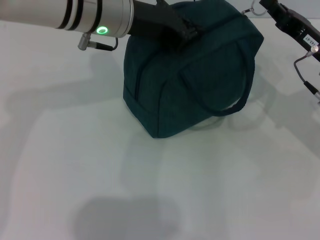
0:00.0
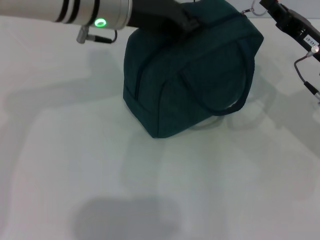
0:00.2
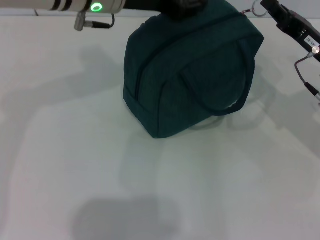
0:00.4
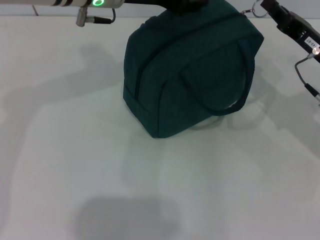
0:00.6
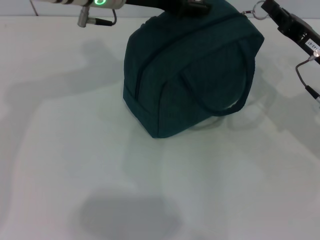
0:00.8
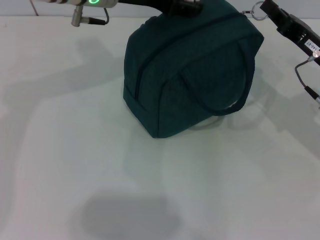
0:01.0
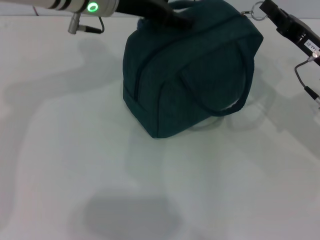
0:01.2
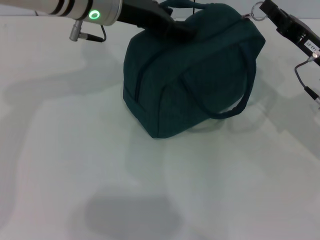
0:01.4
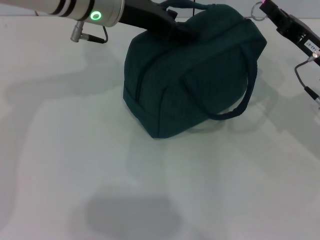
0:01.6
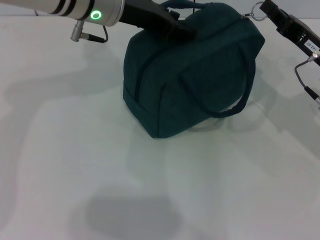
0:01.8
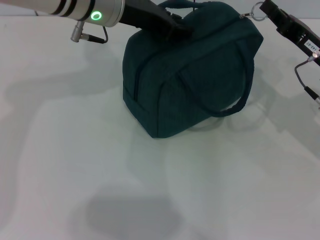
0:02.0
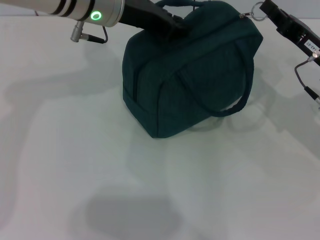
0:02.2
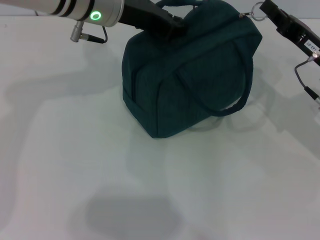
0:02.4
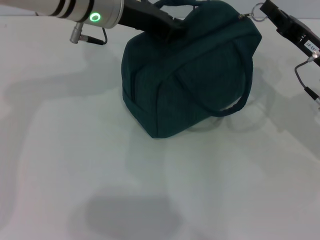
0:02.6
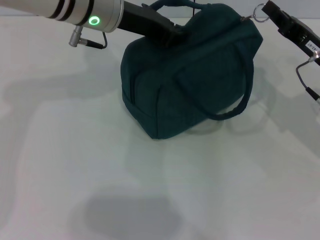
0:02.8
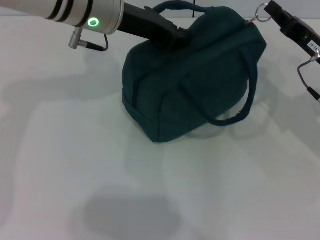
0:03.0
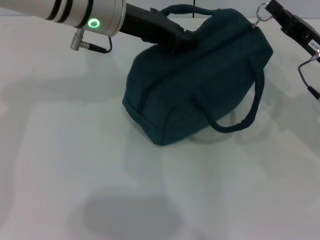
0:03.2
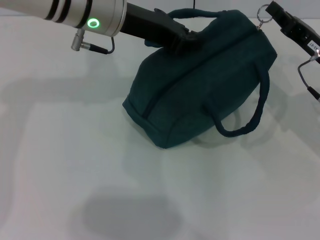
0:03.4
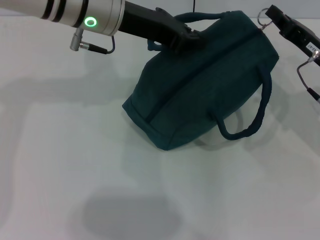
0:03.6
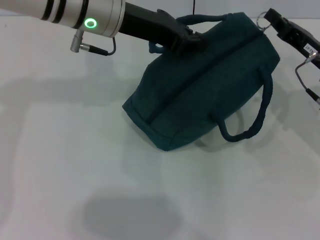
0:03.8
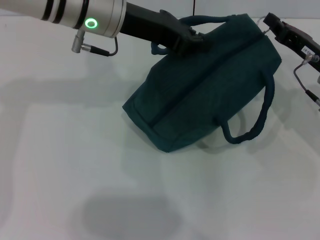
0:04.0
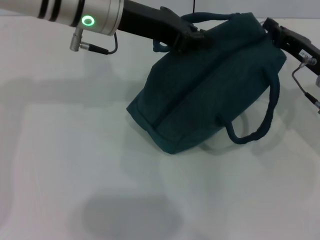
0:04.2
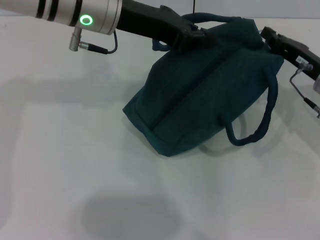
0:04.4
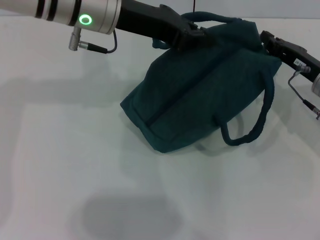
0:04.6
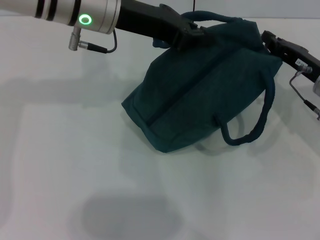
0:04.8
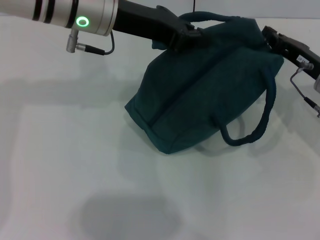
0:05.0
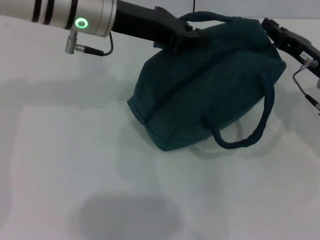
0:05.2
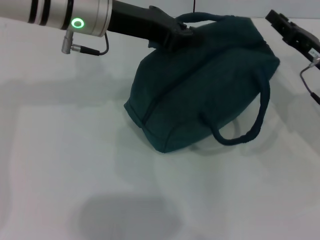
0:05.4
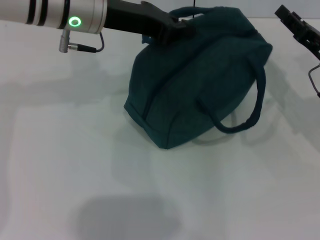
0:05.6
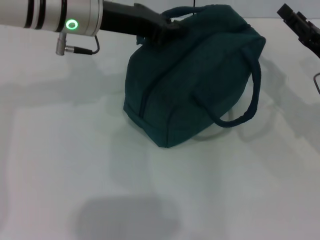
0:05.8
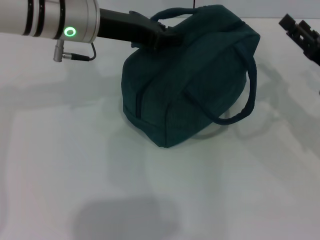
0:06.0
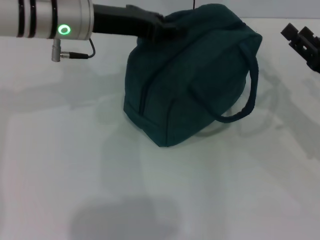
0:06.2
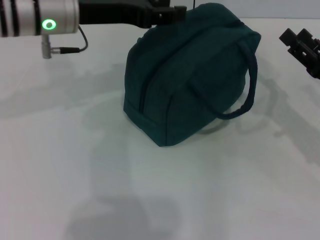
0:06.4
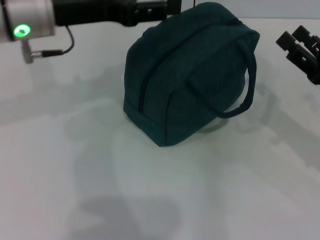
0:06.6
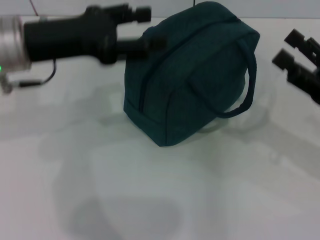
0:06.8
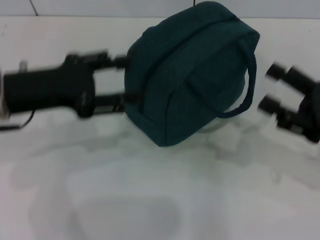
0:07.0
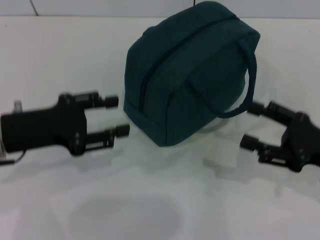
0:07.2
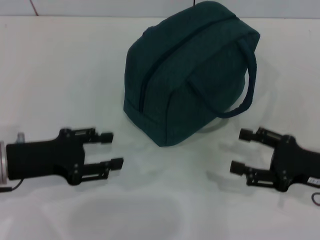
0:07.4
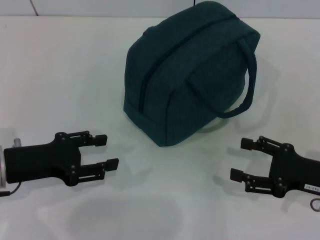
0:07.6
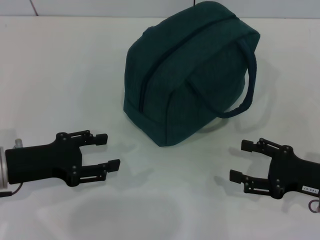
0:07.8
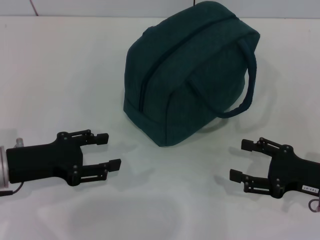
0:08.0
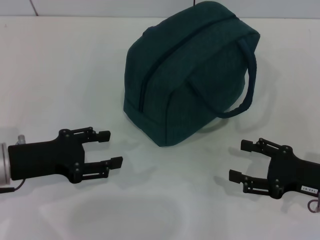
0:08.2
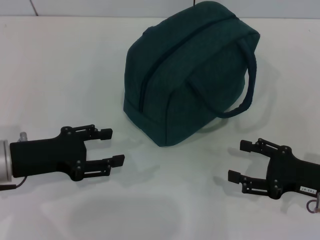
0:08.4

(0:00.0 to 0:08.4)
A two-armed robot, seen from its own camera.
Step, 0:00.0 - 0:05.4: Zip up the lunch bag with your right hand.
Step, 0:05.6 - 0:06.4: Hold the lunch bag with your left hand.
0:00.0 - 0:01.4: The left gripper opens up.
0:01.4 - 0:02.8: The left gripper closes up.
0:02.8 - 0:04.2: The grippers stay close to where they were, moving slightly.
0:04.2 - 0:05.6: The right gripper opens its fingers.
0:05.6 - 0:07.0: The right gripper travels backward by about 10 cm, and opens up. The left gripper heads backward and to the left, covering about 15 cm, and opens up.
0:07.0 - 0:08.4: The two grippers go some 5 cm downward.

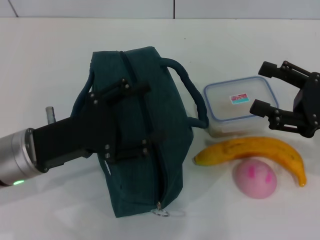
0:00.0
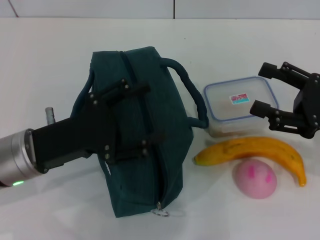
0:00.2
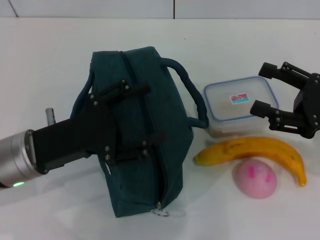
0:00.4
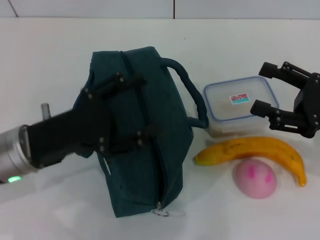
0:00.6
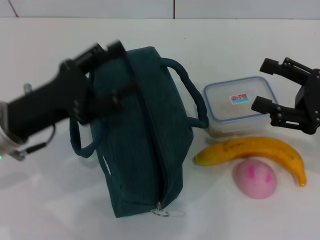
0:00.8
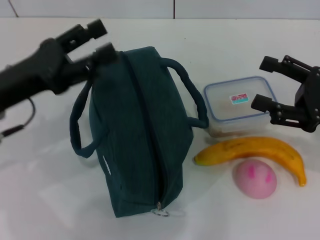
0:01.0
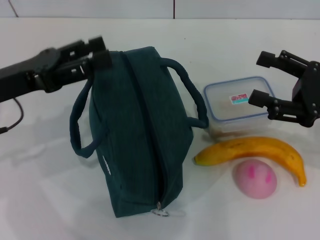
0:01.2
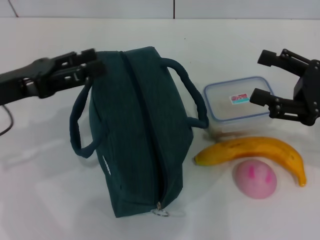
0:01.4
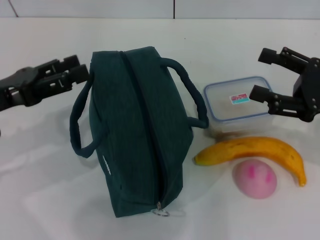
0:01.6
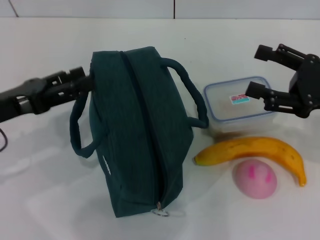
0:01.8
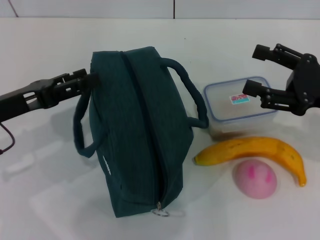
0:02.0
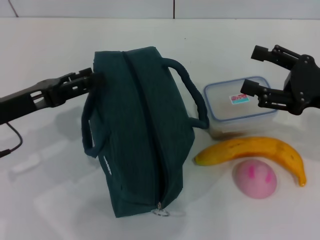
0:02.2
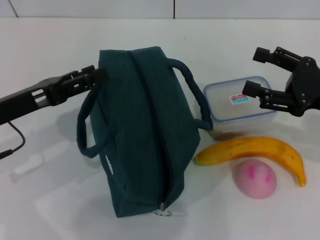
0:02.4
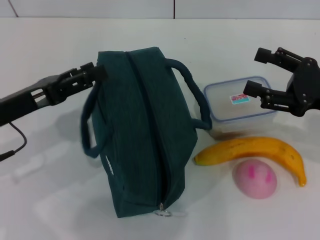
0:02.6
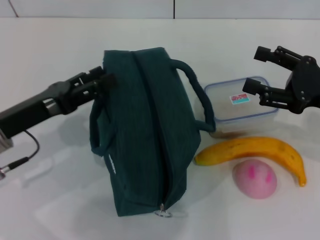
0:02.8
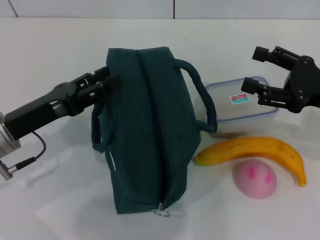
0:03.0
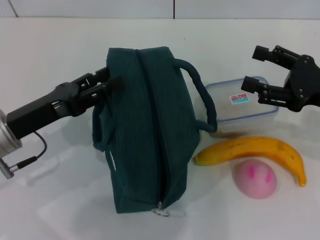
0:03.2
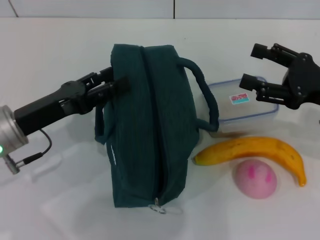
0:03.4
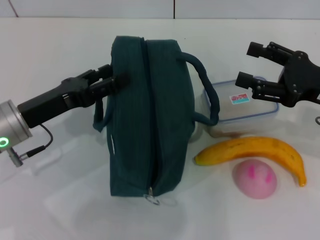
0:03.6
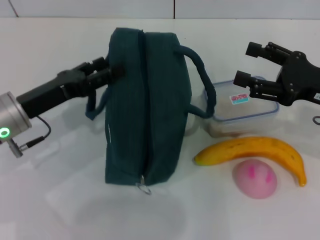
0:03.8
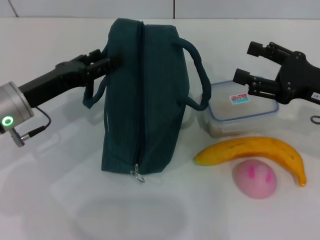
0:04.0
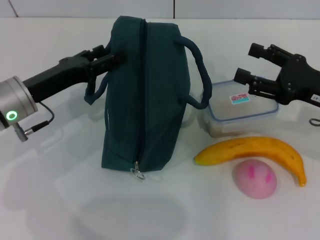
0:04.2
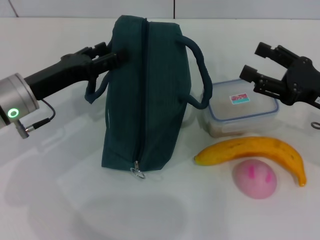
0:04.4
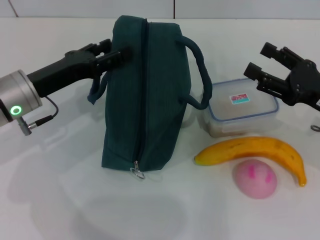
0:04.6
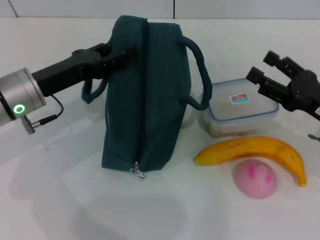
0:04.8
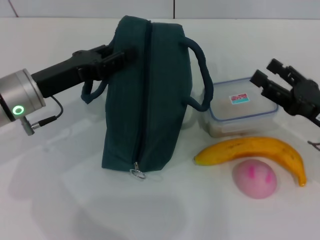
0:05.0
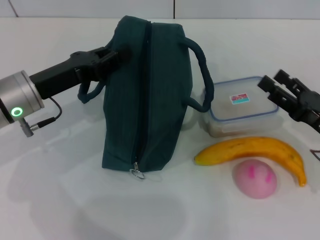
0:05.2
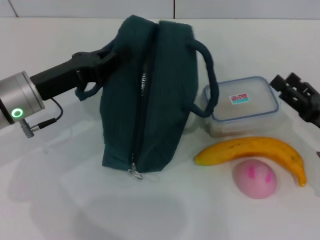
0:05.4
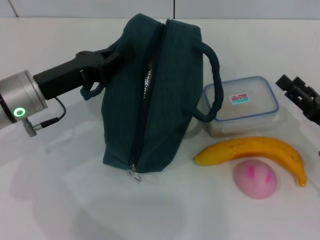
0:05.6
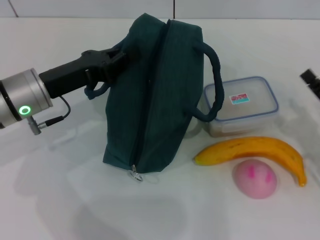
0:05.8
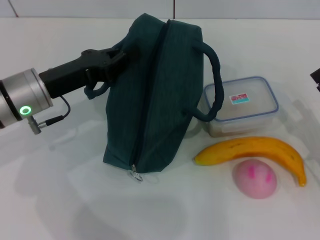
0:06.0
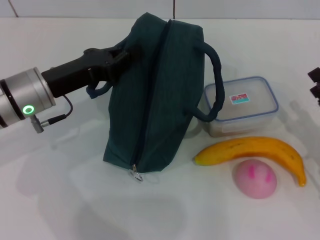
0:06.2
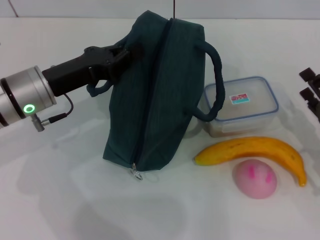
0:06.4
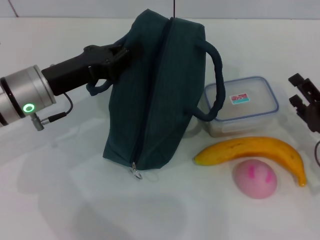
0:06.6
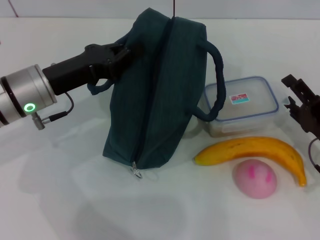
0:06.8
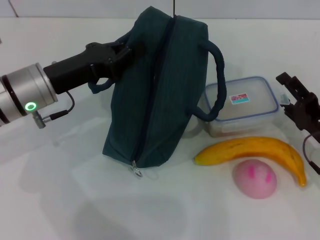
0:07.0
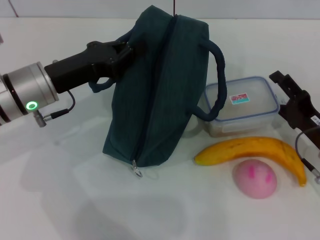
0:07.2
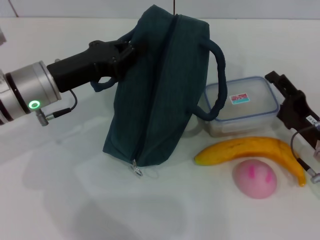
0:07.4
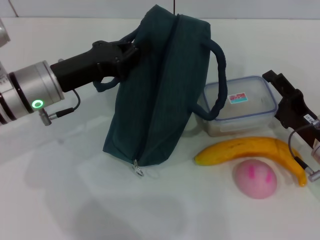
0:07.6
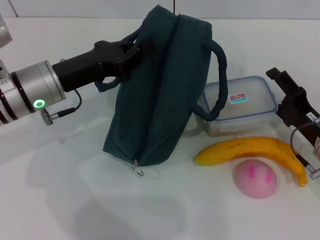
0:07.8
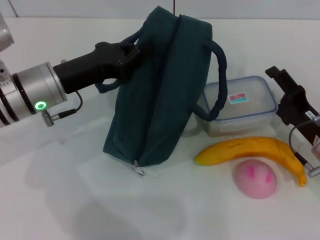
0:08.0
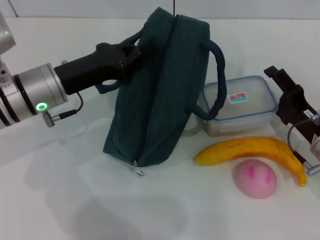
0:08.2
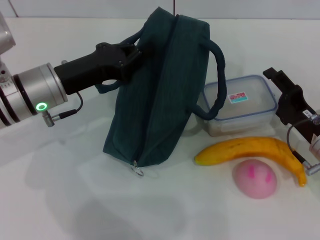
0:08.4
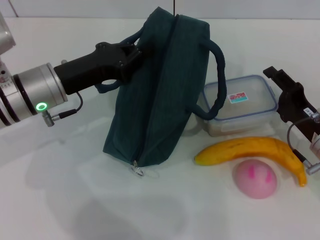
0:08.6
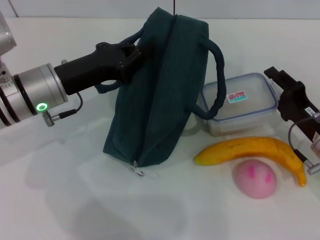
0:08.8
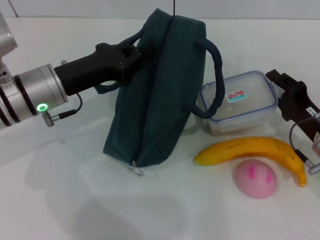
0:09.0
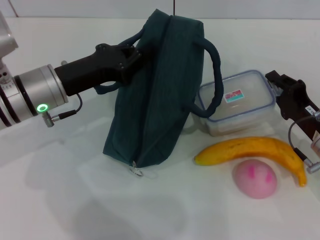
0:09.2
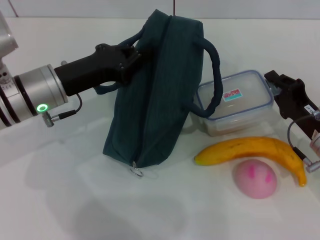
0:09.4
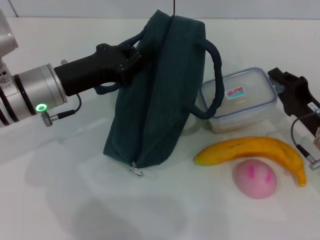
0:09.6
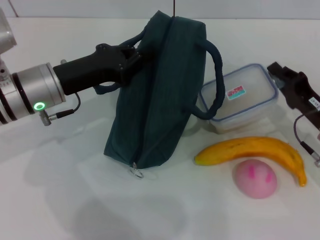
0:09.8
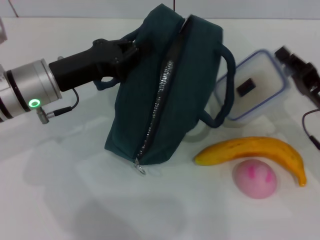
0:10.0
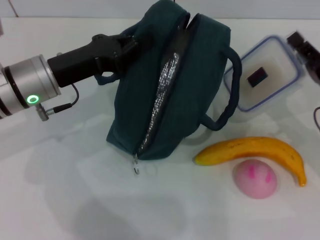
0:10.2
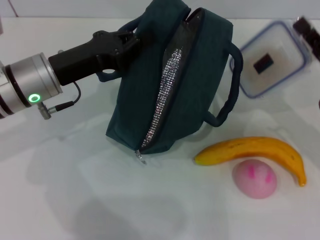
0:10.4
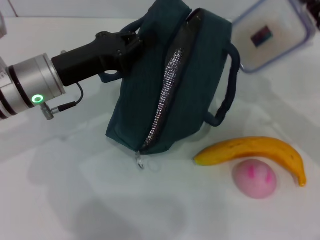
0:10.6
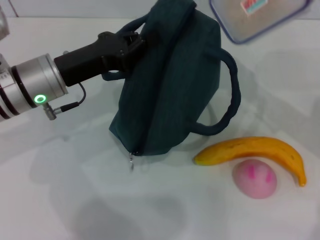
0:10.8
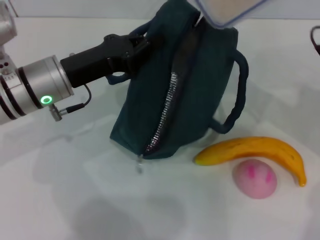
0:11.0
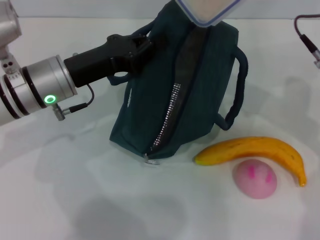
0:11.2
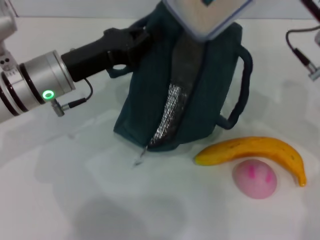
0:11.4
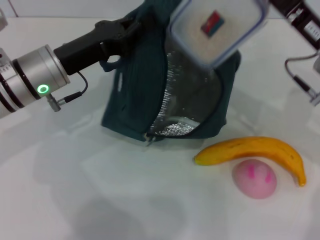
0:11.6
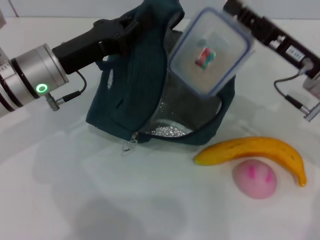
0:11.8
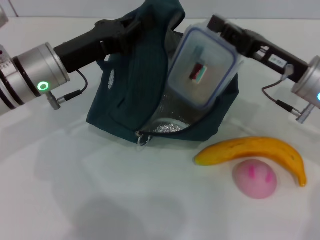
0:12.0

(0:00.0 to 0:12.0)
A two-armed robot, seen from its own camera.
Step, 0:00.0 - 0:05.6: Hold the lunch bag with your left hand.
Step, 0:05.8 - 0:09.4: Pick up the lunch box with your right hand.
0:00.0 - 0:01.6: The left gripper travels to the left and upward by about 10 cm.
0:01.6 - 0:03.0: The left gripper shifts by roughly 5 cm.
0:03.0 - 0:04.4: The left gripper is displaced forward by approximately 5 cm.
0:04.4 - 0:06.0: The right gripper is displaced downward and backward by approximately 10 cm; the left gripper closes up.
0:06.0 - 0:07.6: The right gripper is displaced to the left by roughly 5 cm.
0:07.6 - 0:09.0: The right gripper closes.
0:09.0 - 0:10.4: The right gripper heads upward, covering about 5 cm, and closes its fingers.
0:10.4 - 0:12.0: The right gripper goes approximately 5 cm to the left, and reaches approximately 10 cm upward, then returns.

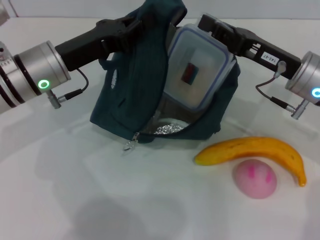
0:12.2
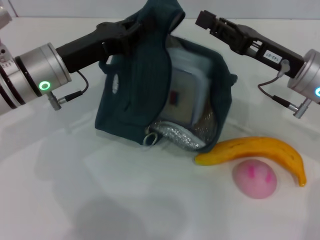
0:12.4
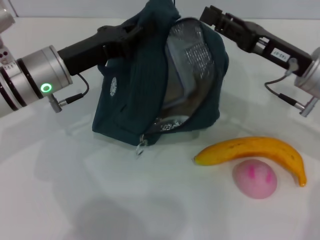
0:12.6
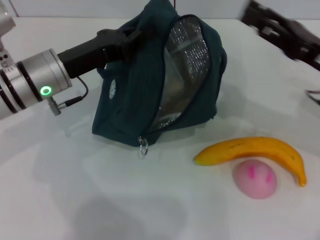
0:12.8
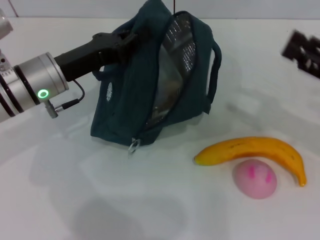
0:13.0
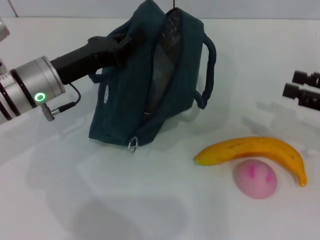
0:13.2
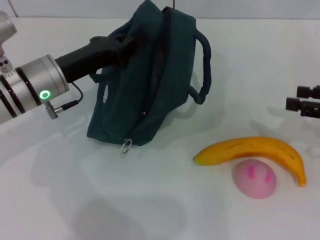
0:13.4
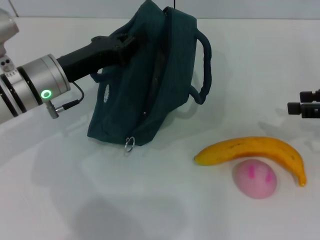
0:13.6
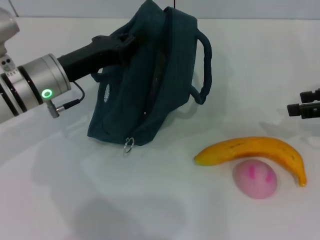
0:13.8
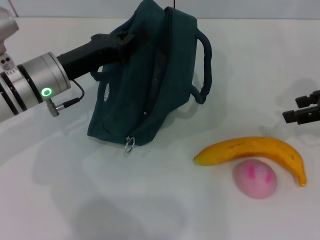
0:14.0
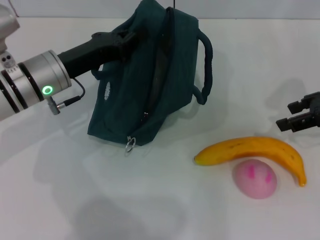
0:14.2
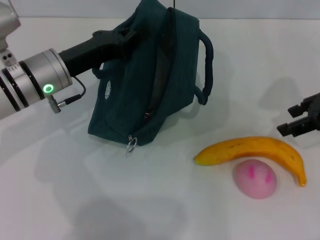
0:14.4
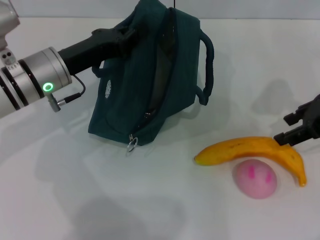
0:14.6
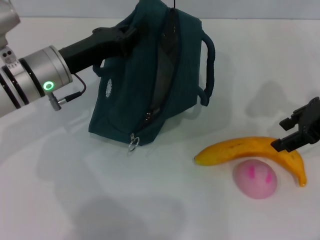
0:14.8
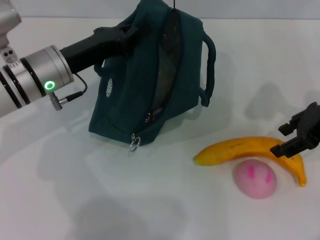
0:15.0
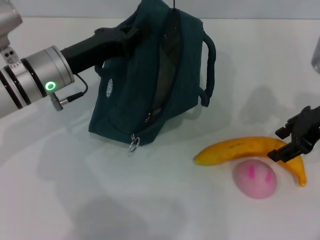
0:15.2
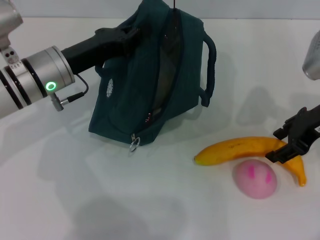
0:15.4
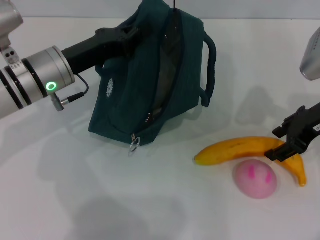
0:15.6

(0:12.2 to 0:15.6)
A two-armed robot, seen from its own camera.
0:12.2 - 0:13.8: The right gripper moves to the right, approximately 15 cm, and opens its fingers.
0:13.8 - 0:15.6: The right gripper shifts approximately 10 cm to the left.
